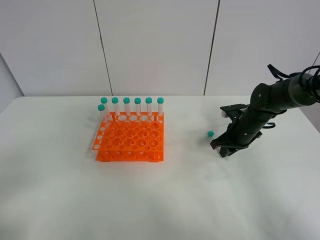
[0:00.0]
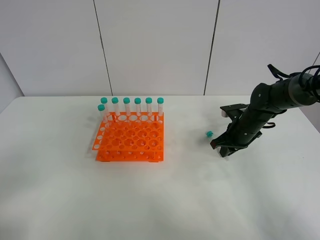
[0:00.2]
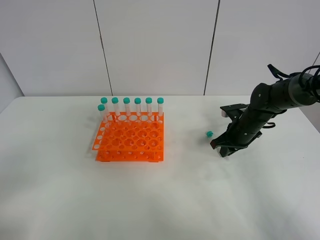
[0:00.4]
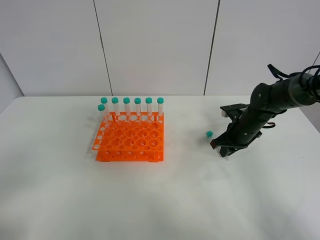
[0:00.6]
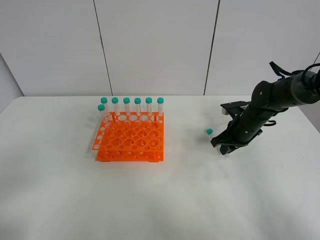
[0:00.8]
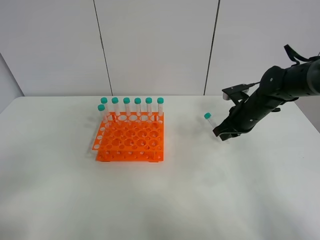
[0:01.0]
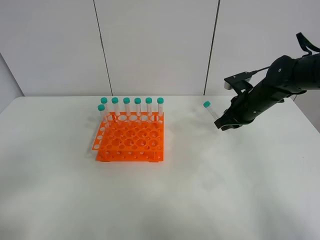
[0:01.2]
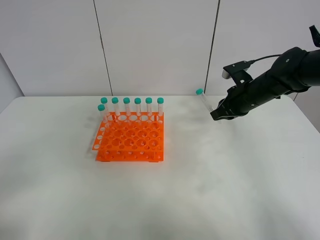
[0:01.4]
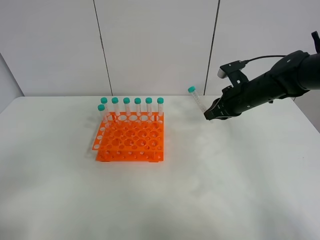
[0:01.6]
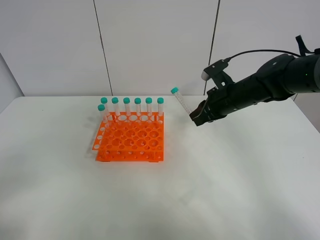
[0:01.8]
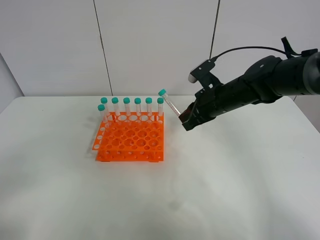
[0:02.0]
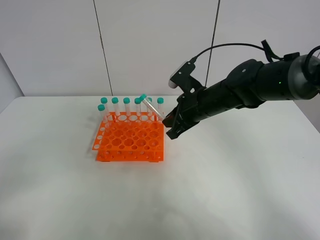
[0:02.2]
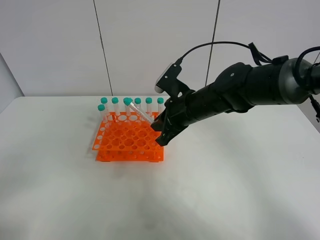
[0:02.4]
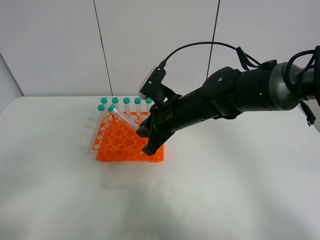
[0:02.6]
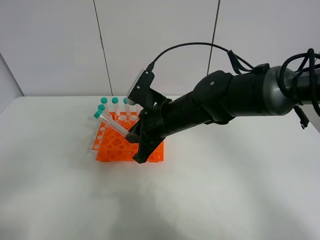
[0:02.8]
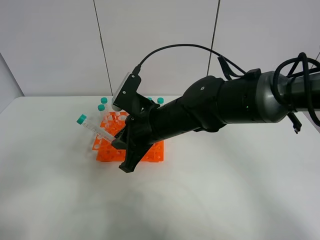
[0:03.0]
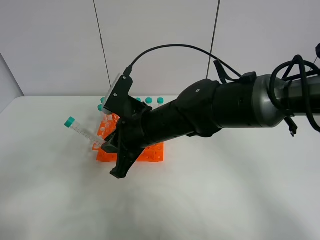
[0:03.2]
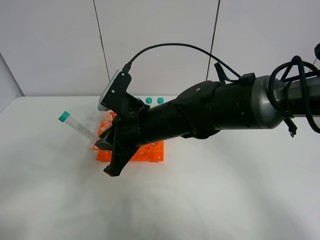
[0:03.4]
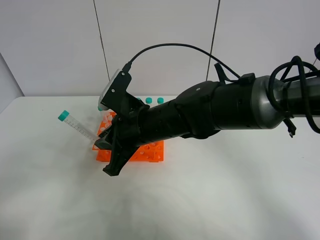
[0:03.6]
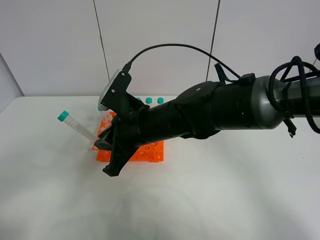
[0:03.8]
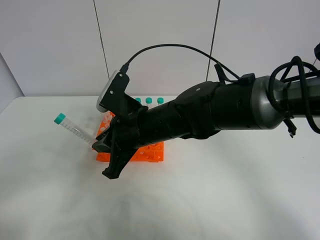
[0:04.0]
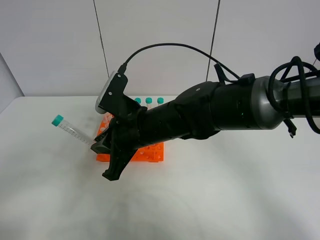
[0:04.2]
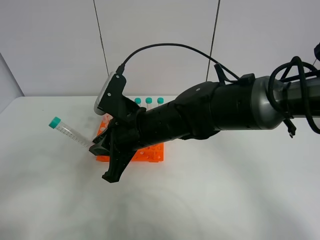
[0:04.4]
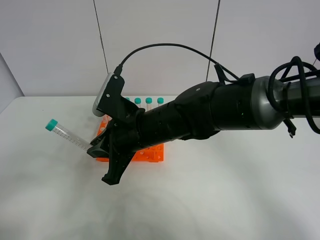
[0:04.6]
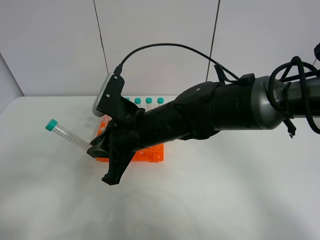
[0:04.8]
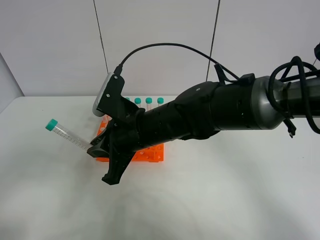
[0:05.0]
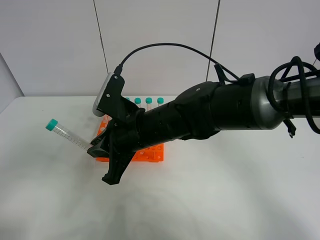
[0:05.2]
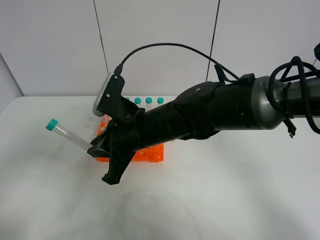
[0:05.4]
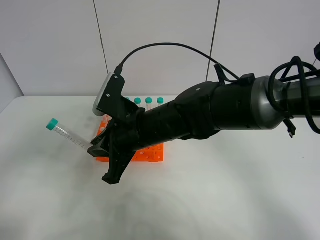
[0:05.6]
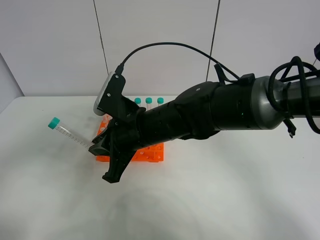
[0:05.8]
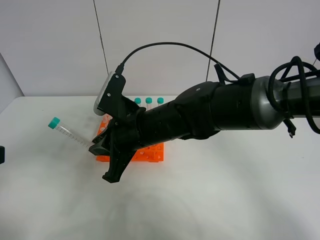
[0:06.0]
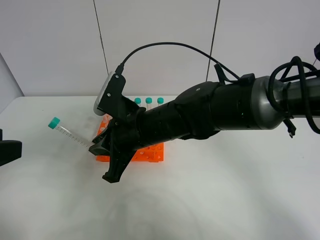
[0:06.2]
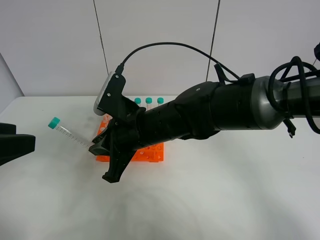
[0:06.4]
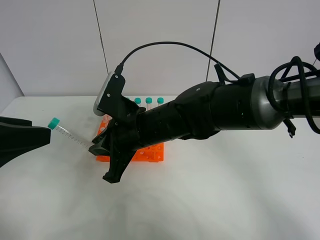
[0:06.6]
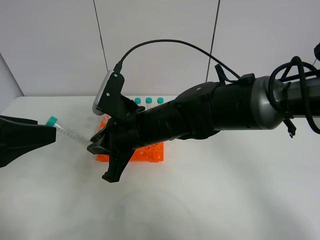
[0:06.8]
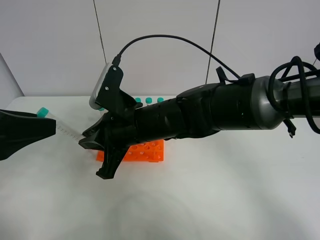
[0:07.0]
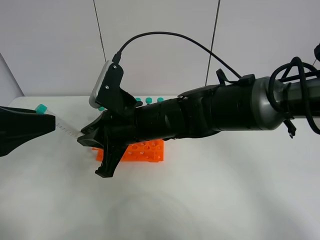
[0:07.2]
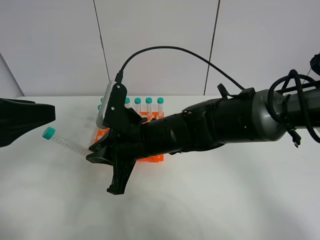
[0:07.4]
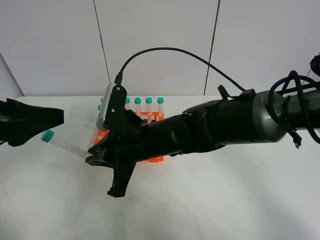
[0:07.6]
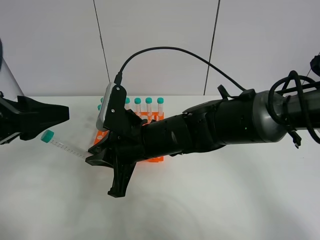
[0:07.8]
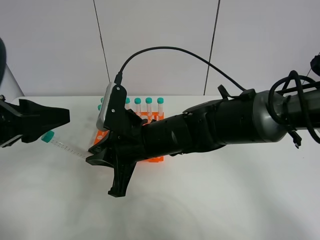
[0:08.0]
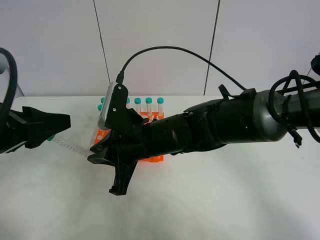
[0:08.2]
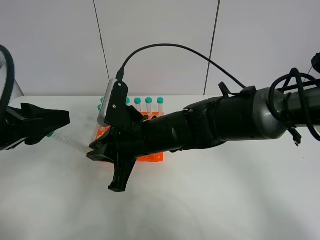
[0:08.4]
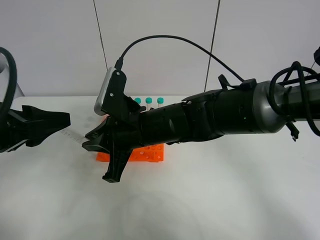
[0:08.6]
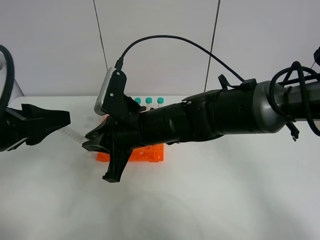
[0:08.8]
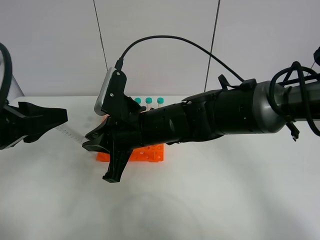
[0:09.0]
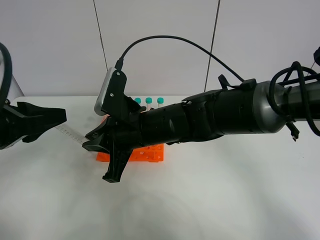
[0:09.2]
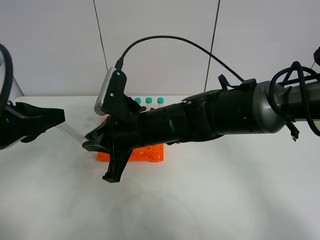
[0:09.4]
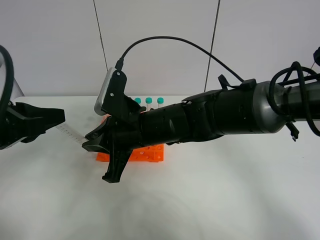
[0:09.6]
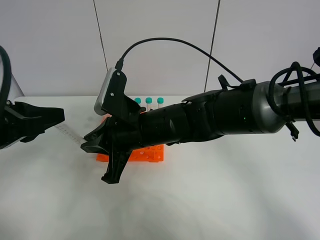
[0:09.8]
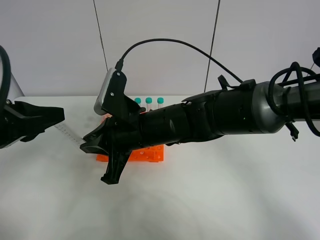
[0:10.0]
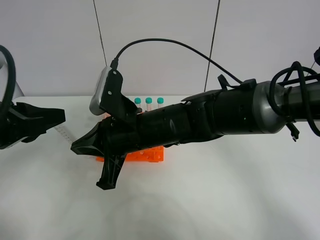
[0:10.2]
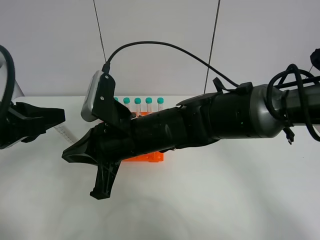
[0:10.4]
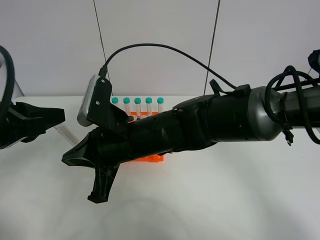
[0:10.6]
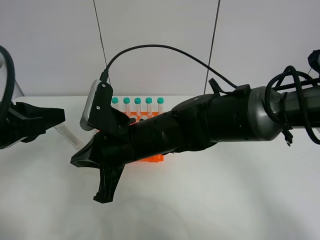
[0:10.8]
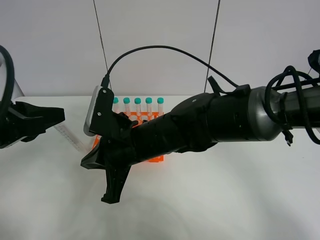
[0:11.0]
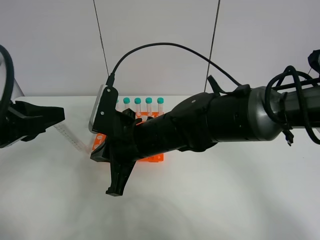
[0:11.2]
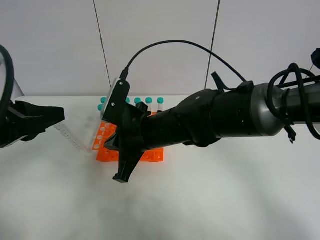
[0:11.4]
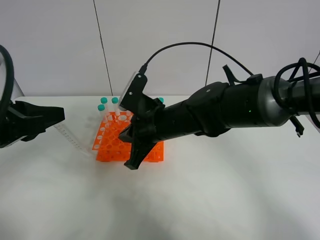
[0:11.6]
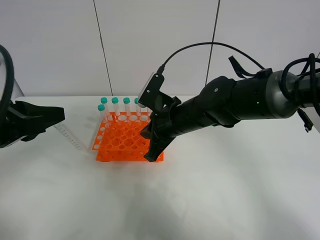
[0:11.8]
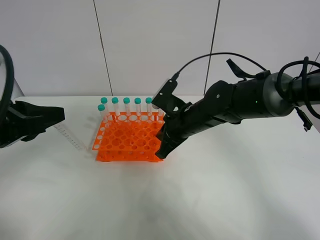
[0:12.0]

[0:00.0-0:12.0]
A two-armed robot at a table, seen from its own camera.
Task of the whole recording: Put the test tube on the table back onto the test tube rack.
Step, 0:01.8 to 0:11.8: Move the test tube from the right gripper to the left gripper.
0:00.0 to 0:01.6: The right gripper goes approximately 10 cm upward.
0:01.6 to 0:03.0: The right gripper shifts about 25 cm to the left and backward.
0:03.0 to 0:04.4: There are only small adjustments of the grippers.
0:04.4 to 0:06.0: The left gripper heads forward, covering some 10 cm.
0:06.0 to 0:07.6: The left gripper goes about 10 cm forward.
0:07.6 to 0:09.0: The left gripper closes up.
0:09.0 to 0:10.4: The left gripper closes.
0:10.4 to 0:12.0: The right gripper shifts roughly 15 cm to the right, forward and downward.

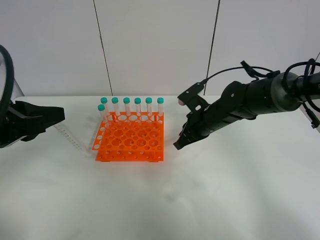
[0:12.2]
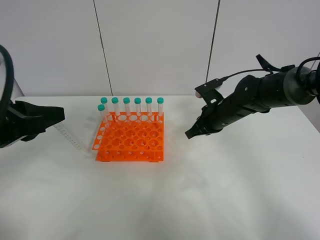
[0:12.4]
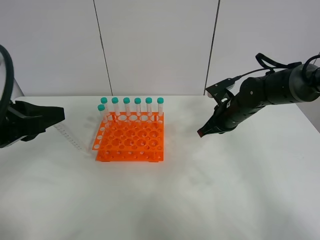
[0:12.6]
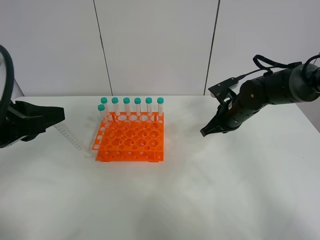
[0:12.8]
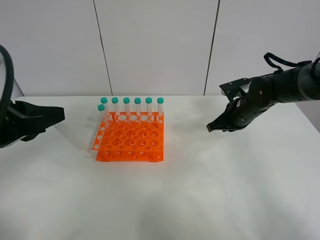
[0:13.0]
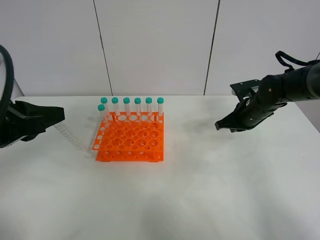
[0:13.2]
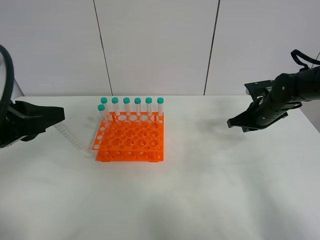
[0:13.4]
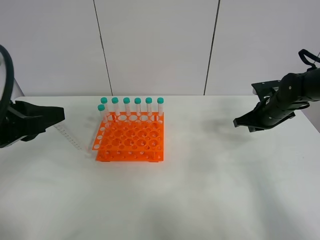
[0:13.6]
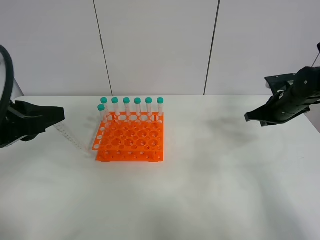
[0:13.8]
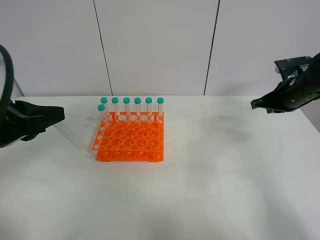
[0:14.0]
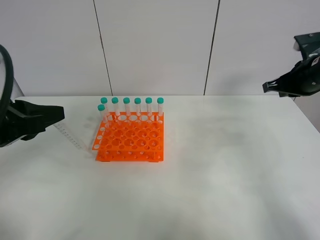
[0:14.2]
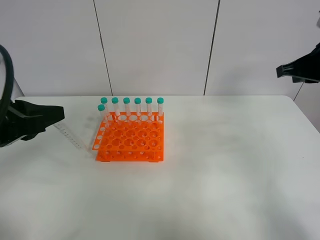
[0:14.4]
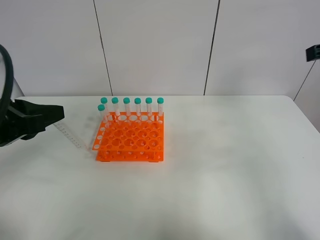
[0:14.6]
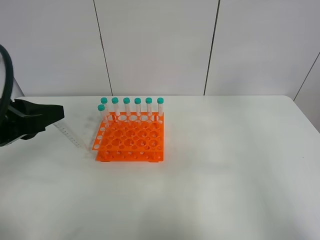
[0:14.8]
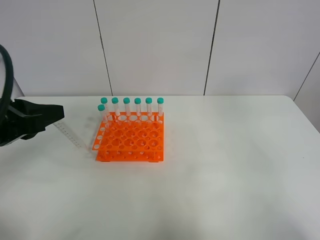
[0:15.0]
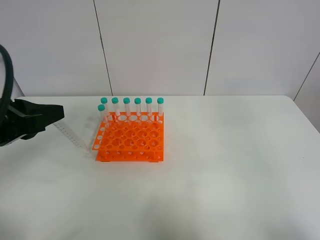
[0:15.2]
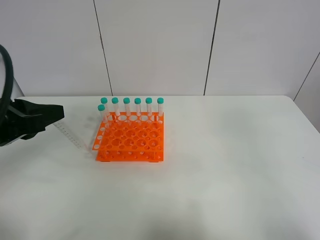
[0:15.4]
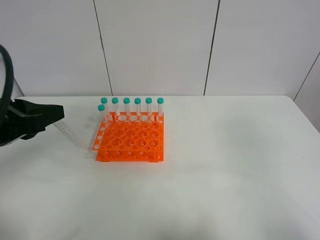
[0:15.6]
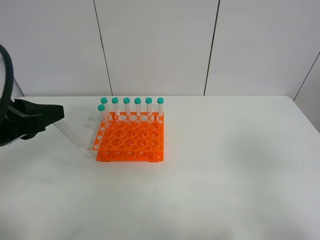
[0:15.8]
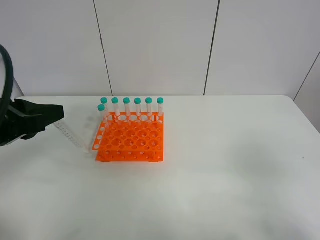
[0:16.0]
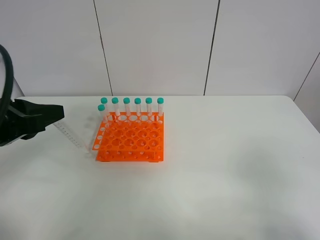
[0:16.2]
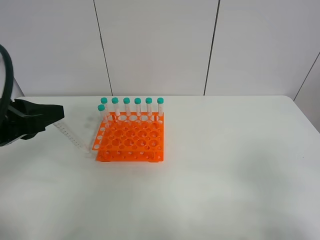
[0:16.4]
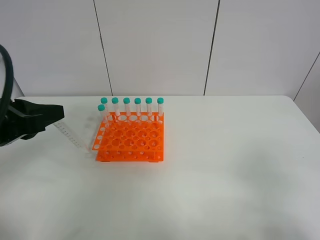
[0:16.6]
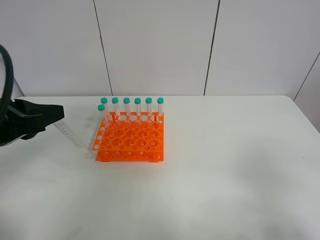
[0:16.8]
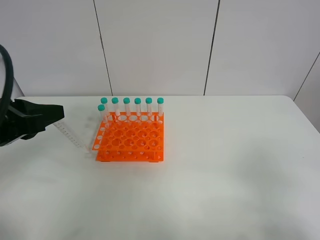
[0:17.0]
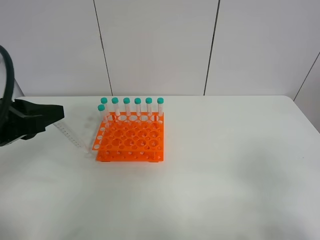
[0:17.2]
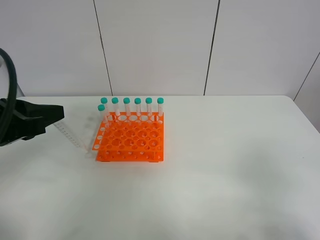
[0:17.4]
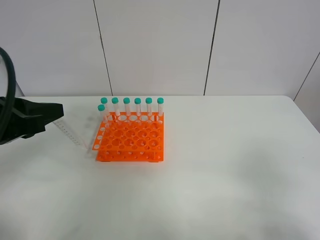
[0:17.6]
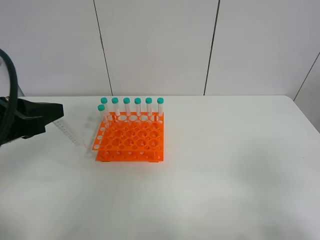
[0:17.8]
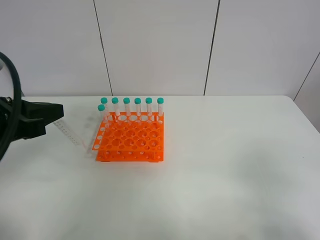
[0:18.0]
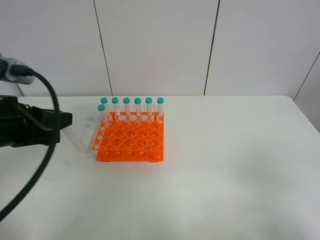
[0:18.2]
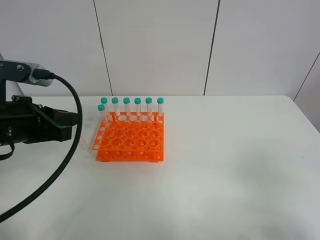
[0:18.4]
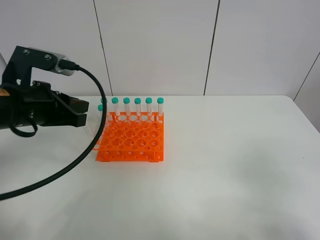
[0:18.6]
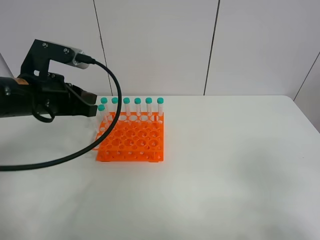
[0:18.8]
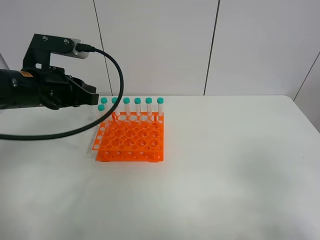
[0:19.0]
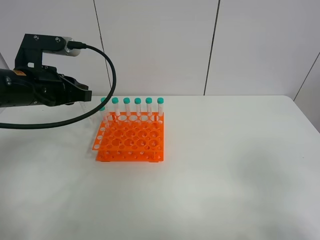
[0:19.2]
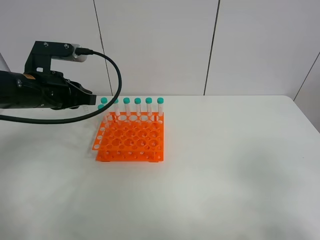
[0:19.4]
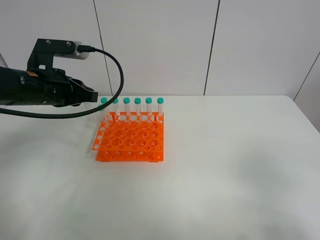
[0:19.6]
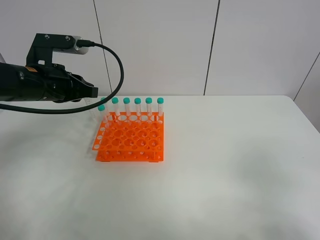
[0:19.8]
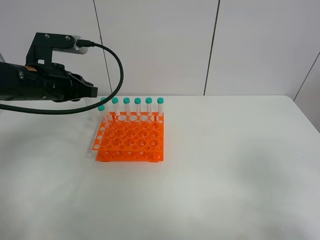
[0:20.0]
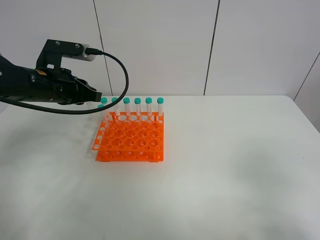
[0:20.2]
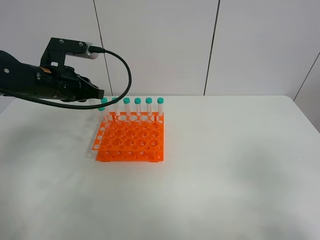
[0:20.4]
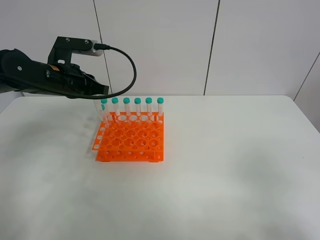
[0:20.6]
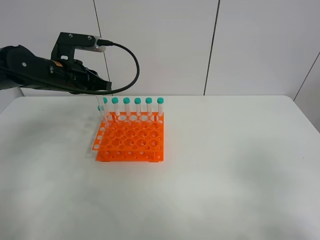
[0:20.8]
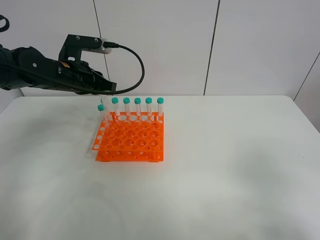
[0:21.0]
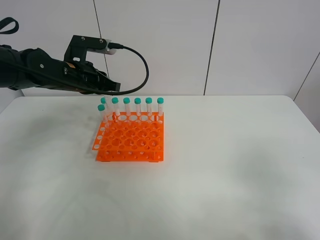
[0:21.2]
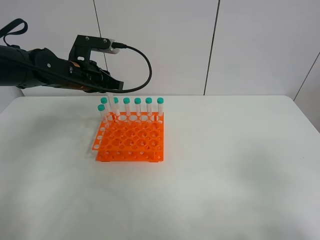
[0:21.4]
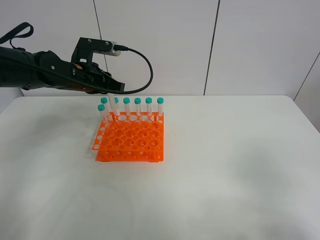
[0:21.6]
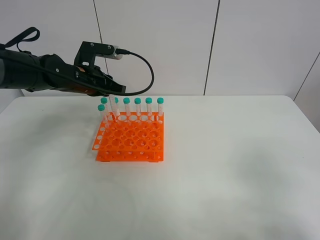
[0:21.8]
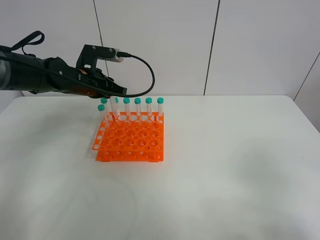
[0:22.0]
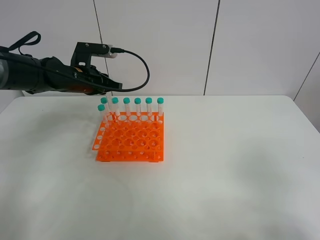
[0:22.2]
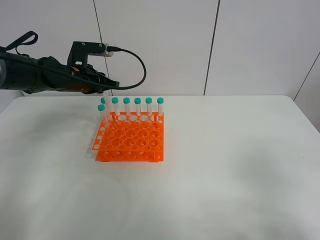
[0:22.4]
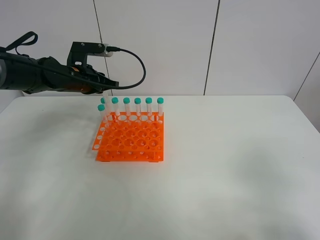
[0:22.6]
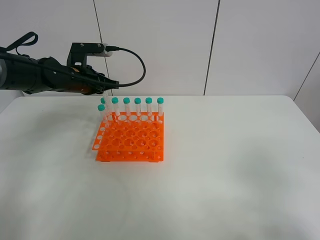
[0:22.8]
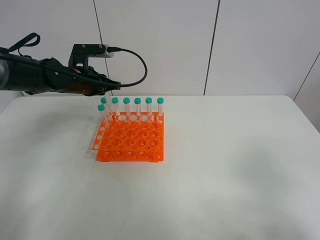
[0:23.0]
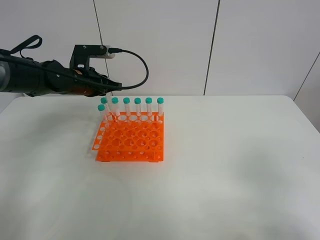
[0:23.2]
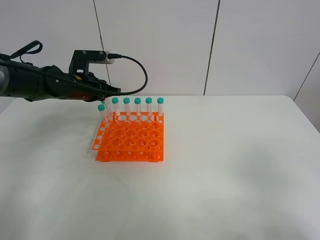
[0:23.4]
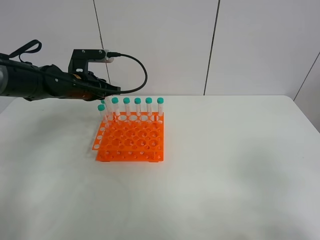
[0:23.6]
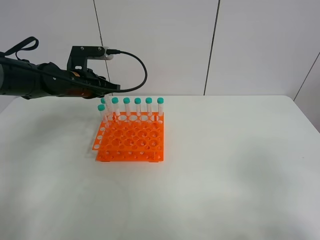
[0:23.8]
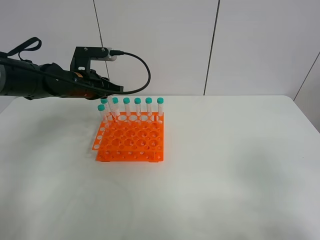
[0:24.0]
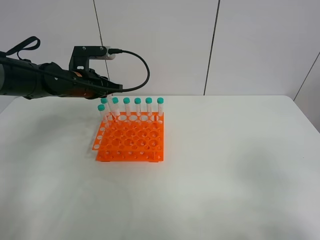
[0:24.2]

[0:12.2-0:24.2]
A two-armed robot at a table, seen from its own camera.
Task of the whole recording: Put the test tube on the table back onto the test tube rack.
0:12.2 to 0:13.8: The right gripper moves to the right, approximately 20 cm.
0:13.8 to 0:15.2: The right gripper goes about 40 cm backward and upward.
0:15.2 to 0:16.6: The right gripper shifts approximately 15 cm downward and backward.
0:16.6 to 0:18.2: There are only small adjustments of the grippers.
0:18.2 to 0:19.8: The left gripper is displaced forward by about 10 cm.
0:19.8 to 0:21.2: The left gripper travels forward by about 5 cm.
0:21.2 to 0:24.2: The grippers make only small movements.
